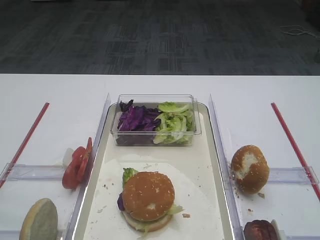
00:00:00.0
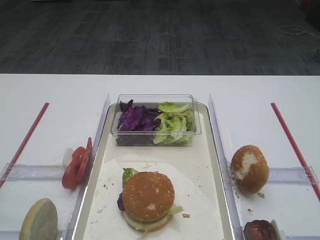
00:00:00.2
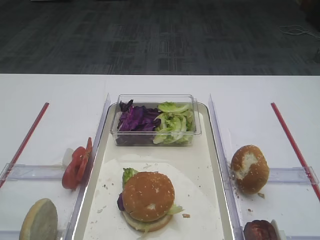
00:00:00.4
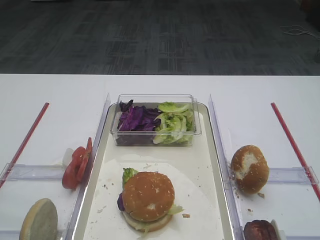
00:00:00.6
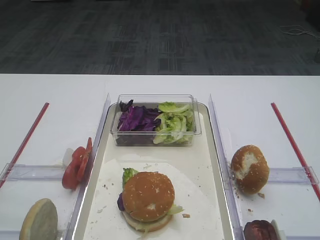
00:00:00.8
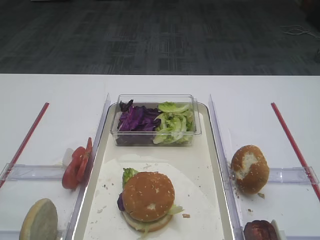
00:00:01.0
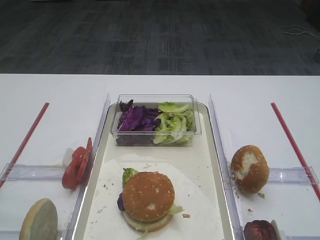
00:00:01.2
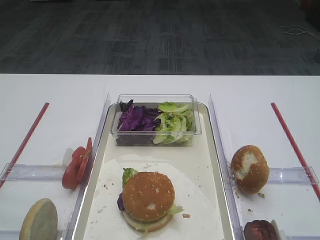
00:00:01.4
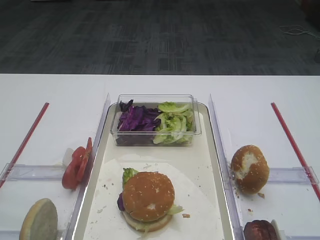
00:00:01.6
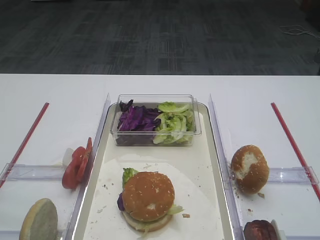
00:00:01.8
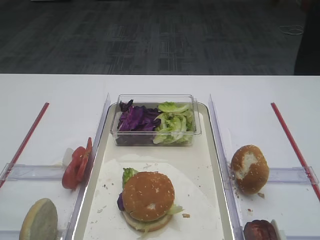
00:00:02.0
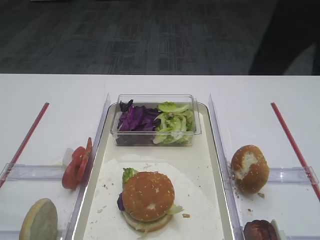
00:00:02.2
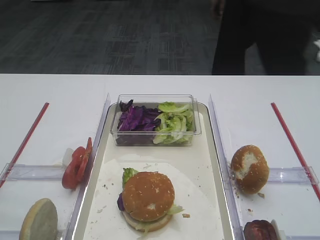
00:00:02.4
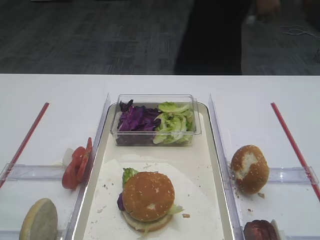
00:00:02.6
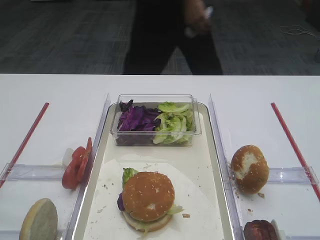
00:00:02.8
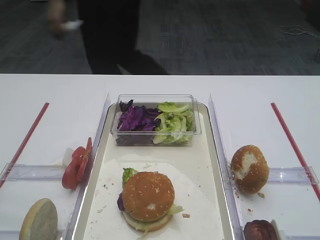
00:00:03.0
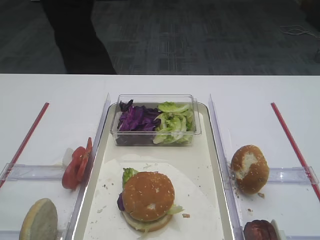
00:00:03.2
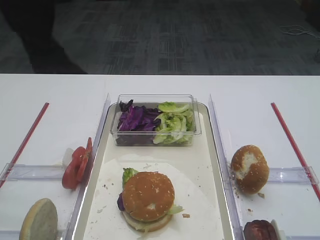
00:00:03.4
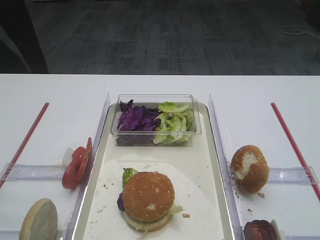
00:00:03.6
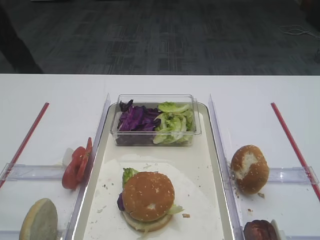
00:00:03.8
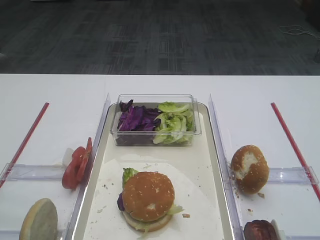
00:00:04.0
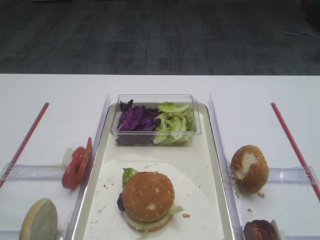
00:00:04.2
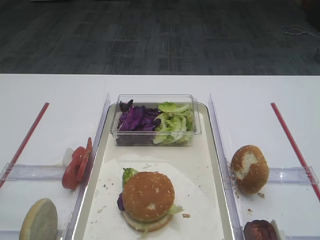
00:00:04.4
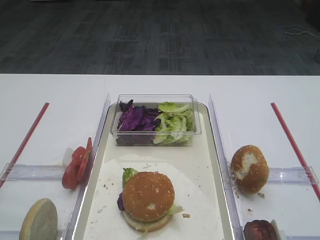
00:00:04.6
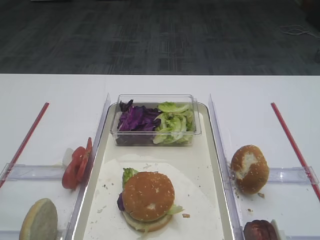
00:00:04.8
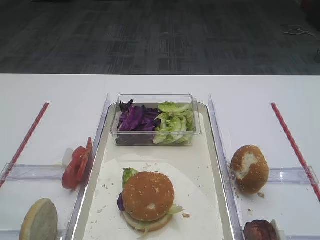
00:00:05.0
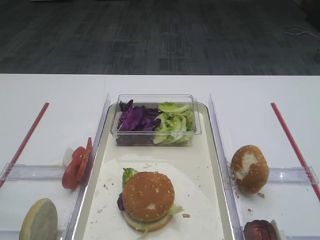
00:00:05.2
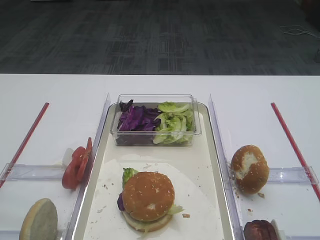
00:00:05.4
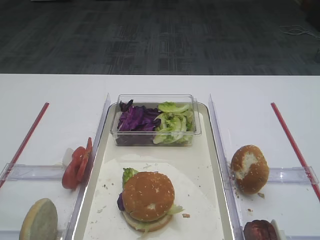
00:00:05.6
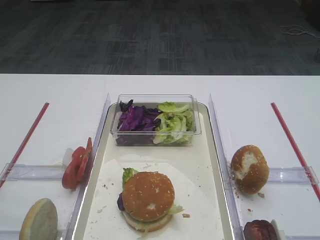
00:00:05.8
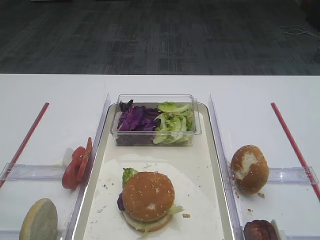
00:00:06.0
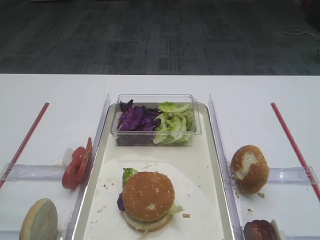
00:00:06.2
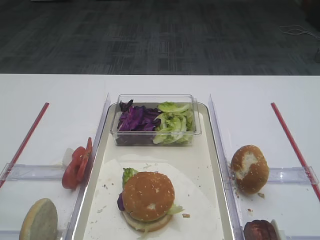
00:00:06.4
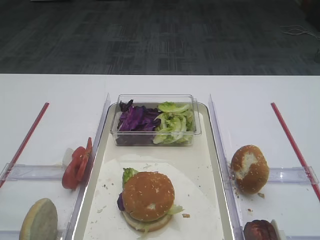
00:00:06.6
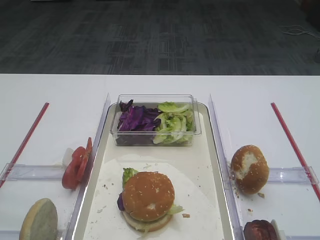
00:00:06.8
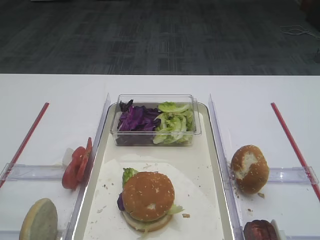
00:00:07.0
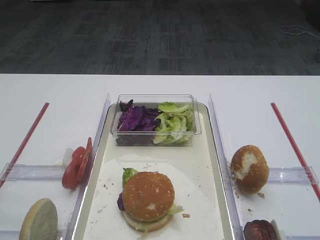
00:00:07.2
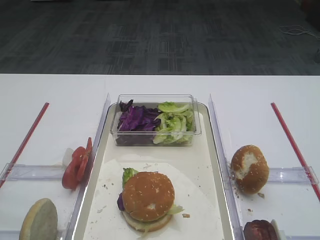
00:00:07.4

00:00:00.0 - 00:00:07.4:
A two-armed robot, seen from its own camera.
00:00:00.0 - 00:00:07.4: Neither gripper changes place.
